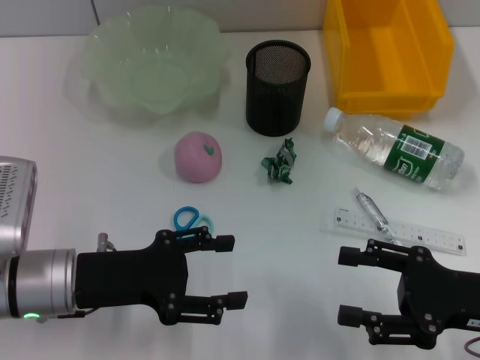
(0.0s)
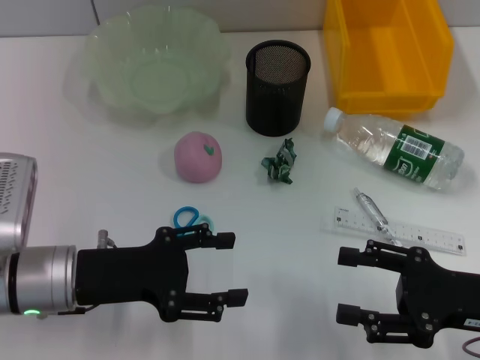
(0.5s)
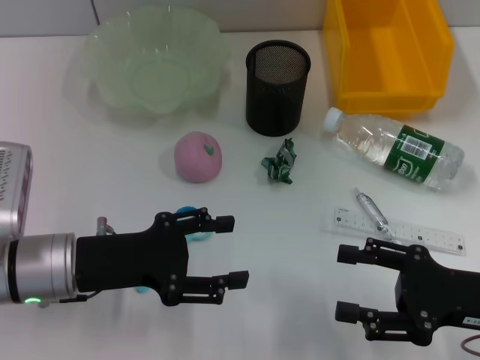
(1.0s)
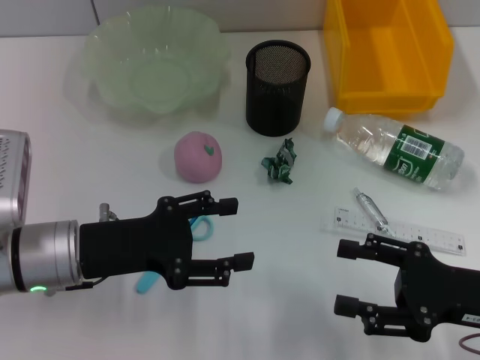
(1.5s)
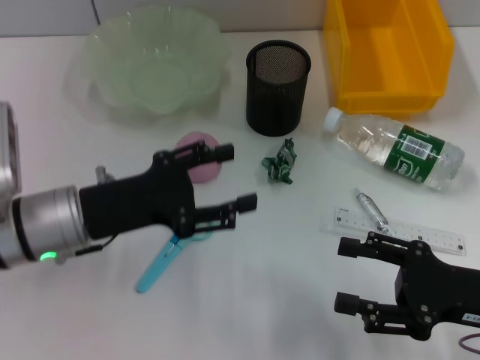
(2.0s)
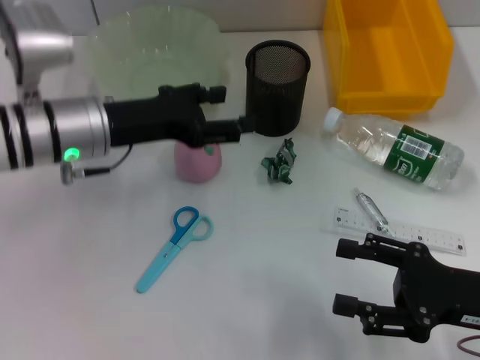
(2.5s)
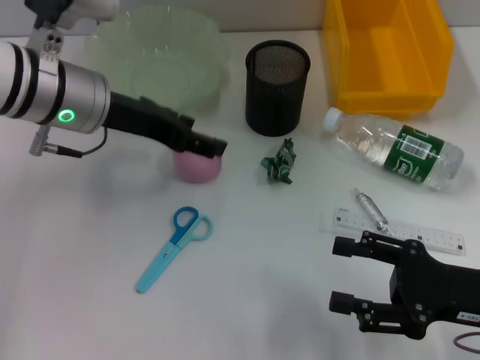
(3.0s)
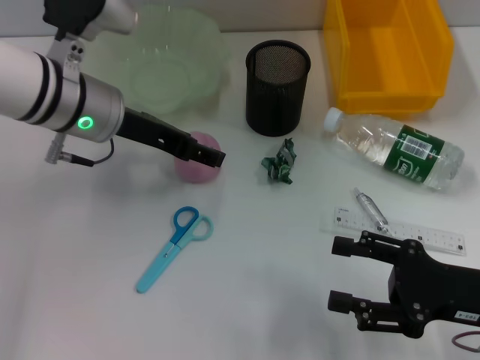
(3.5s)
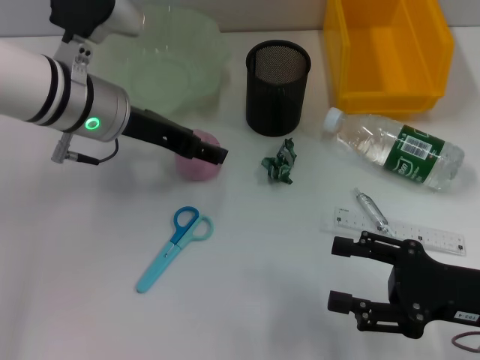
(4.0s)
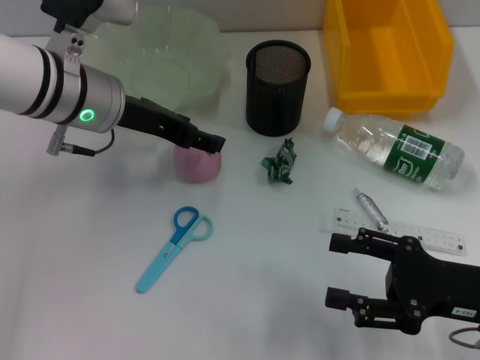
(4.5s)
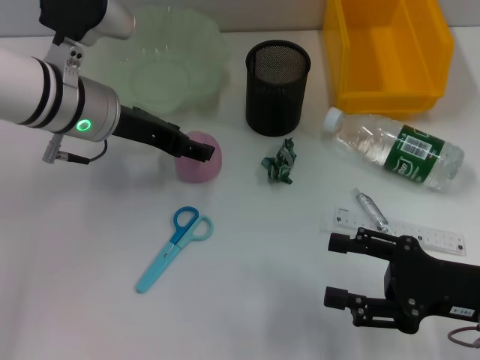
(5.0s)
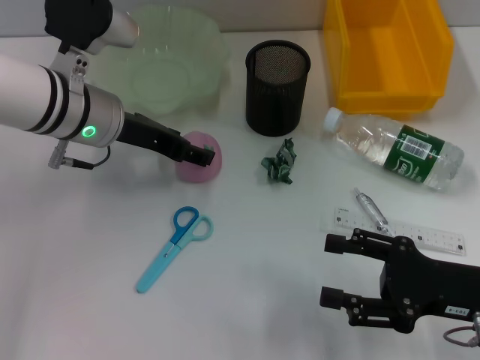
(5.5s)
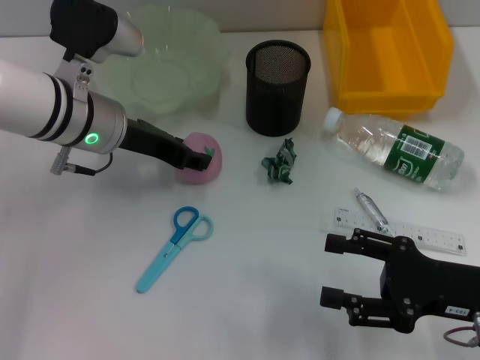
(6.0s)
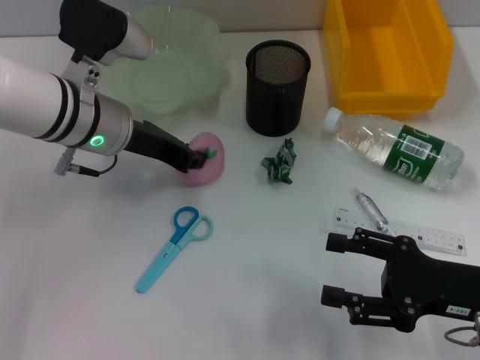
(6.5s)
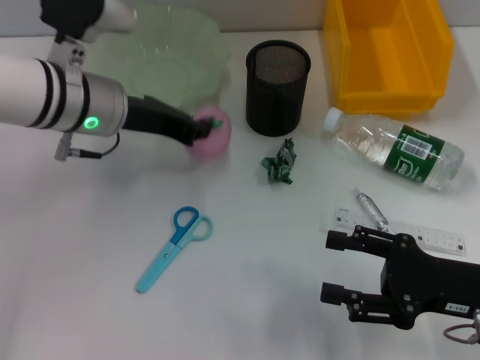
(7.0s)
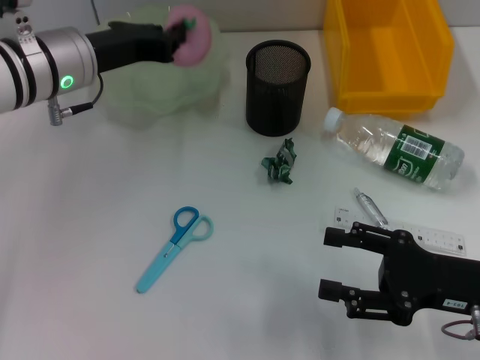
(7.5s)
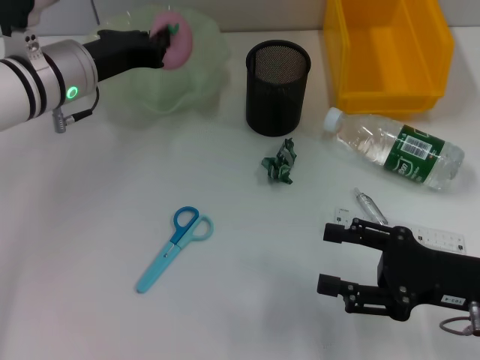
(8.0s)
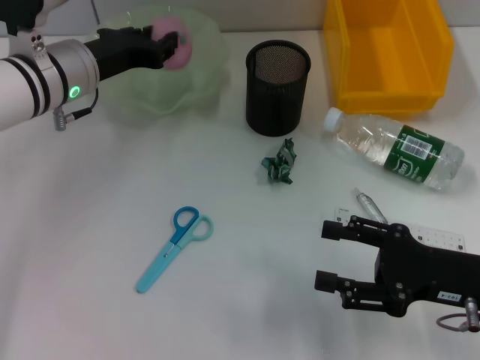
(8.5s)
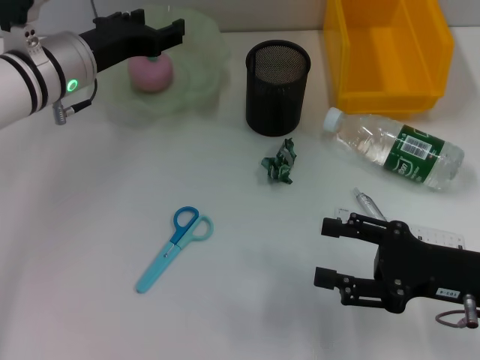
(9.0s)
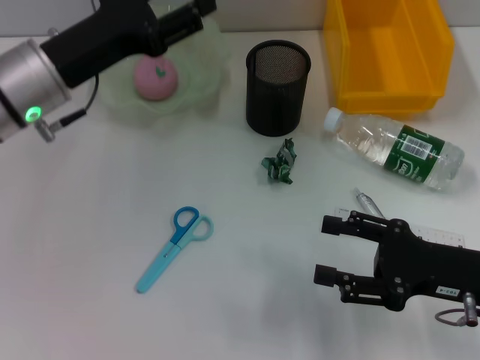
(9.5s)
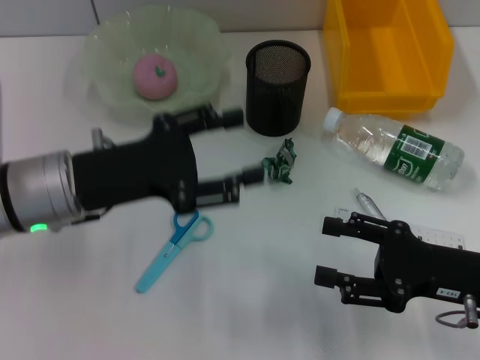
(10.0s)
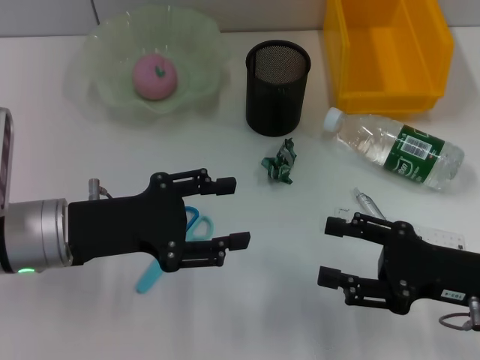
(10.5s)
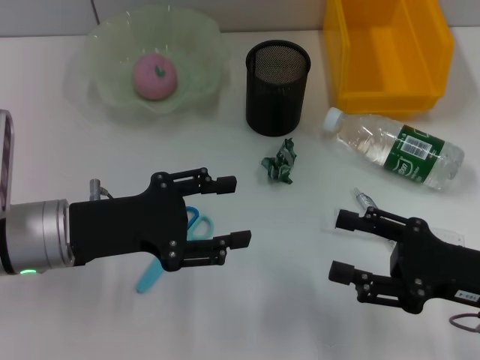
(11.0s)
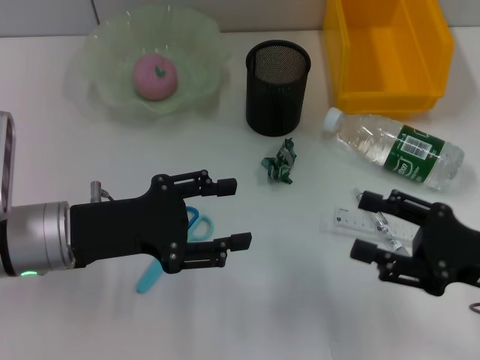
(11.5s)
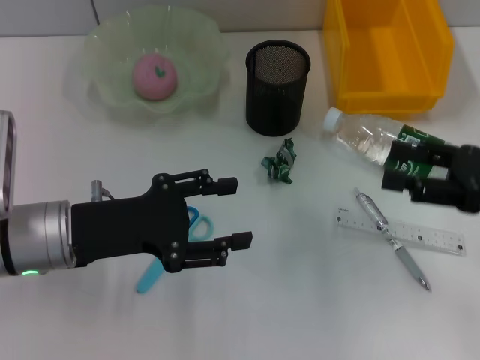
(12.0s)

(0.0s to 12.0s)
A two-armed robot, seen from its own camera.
Step, 0.0s - 6.5s: Grab the peach with the left hand.
Step, 7.0s - 8.5s: Place the peach into the fruit bowl with the left hand.
2.0s - 4.0s: The left gripper moves forward and upward, some 10 cm.
4.0s - 6.0s: There are only small adjustments of the grippers.
6.0s - 8.0s: The left gripper closes up.
8.0s - 10.0s: The left gripper shifts roughly 10 cm backward, and opens its fingers.
10.0s - 12.0s: The right gripper moves upward and to the right, some 10 cm.

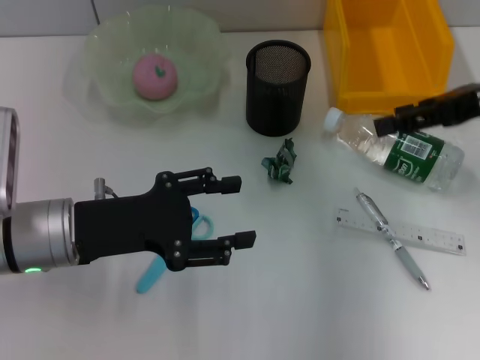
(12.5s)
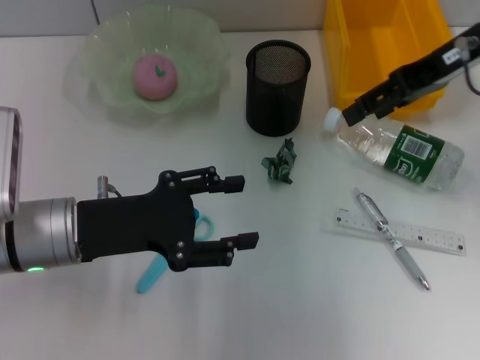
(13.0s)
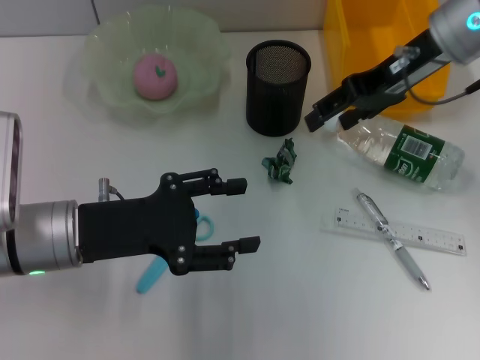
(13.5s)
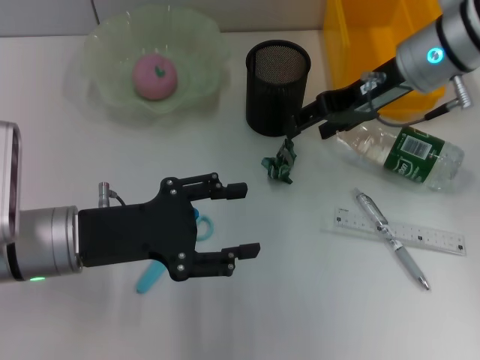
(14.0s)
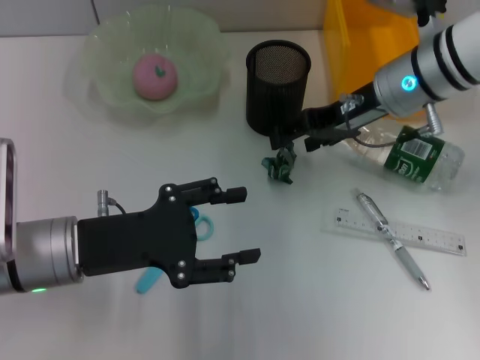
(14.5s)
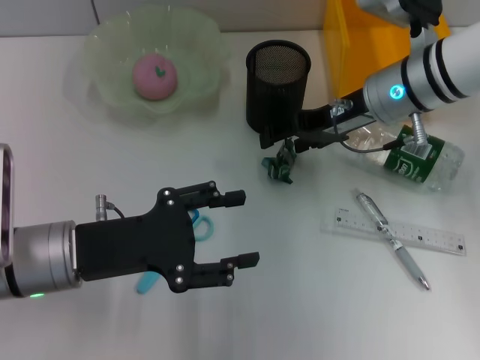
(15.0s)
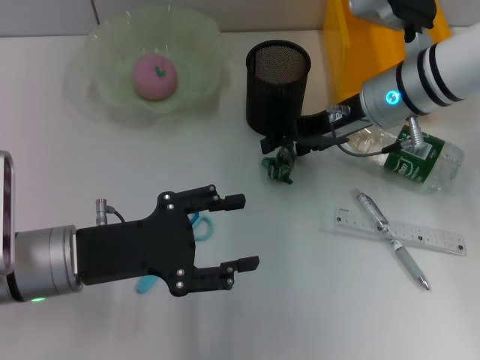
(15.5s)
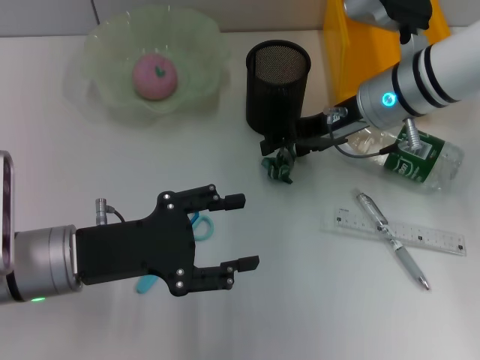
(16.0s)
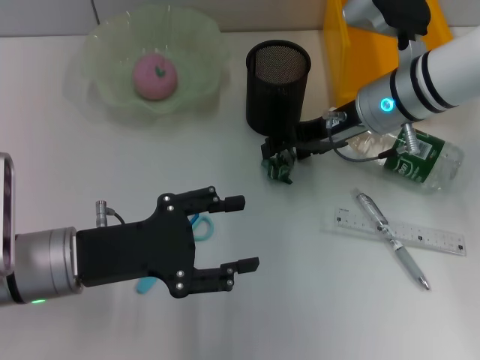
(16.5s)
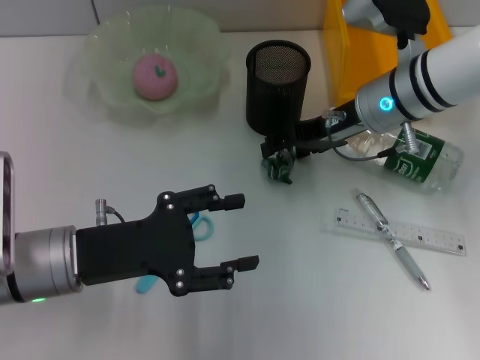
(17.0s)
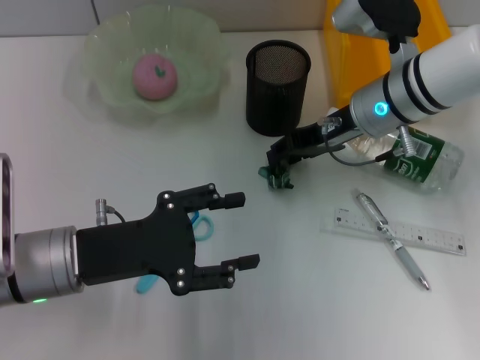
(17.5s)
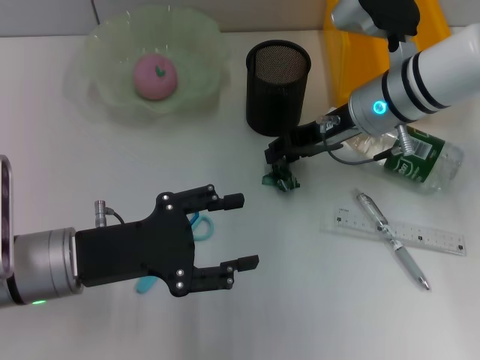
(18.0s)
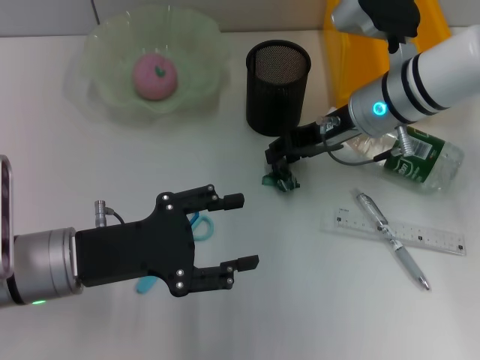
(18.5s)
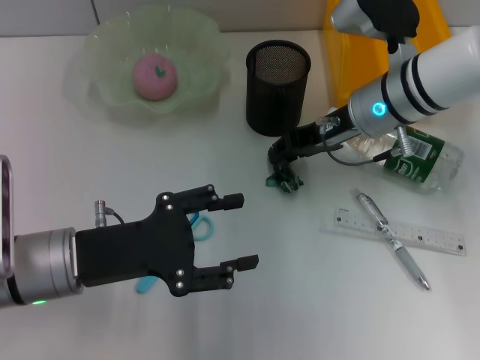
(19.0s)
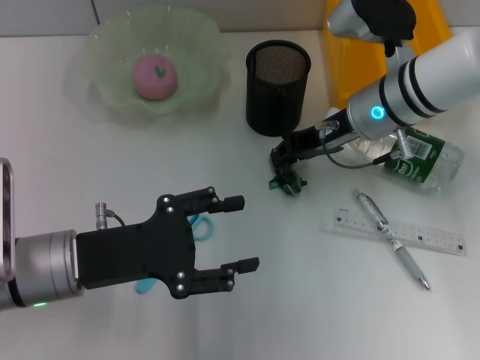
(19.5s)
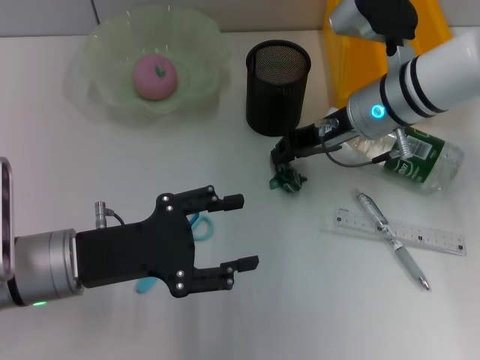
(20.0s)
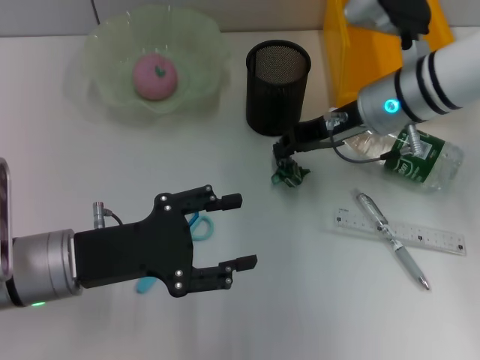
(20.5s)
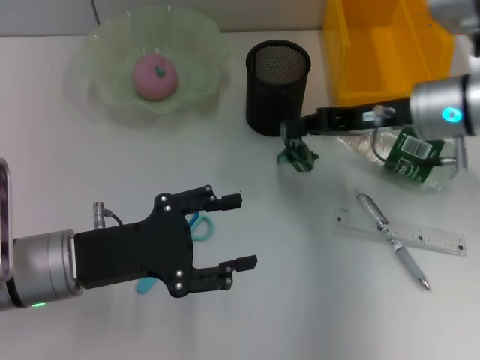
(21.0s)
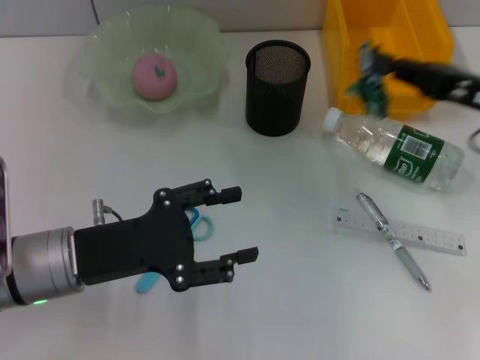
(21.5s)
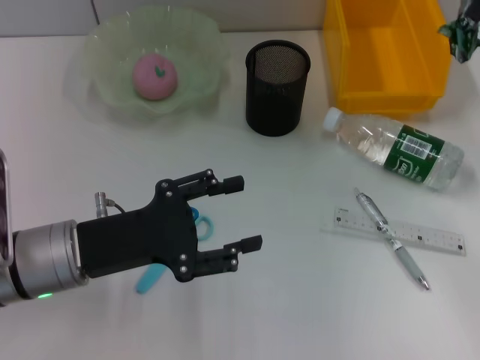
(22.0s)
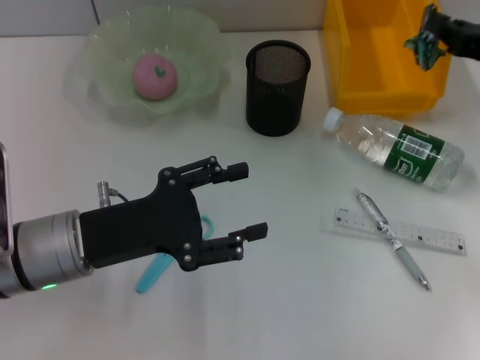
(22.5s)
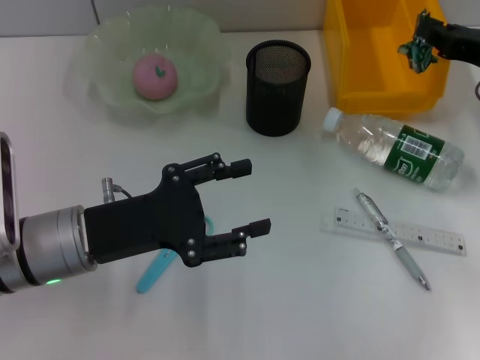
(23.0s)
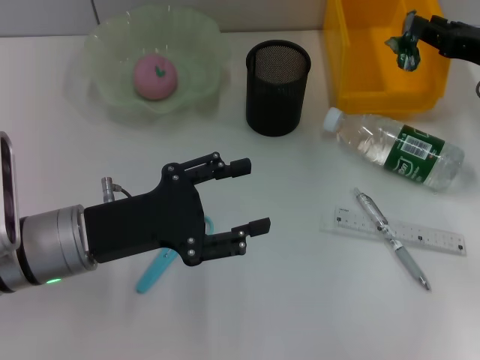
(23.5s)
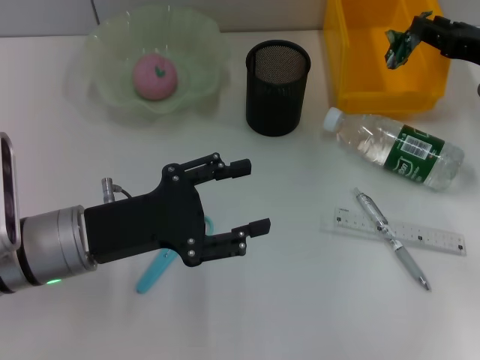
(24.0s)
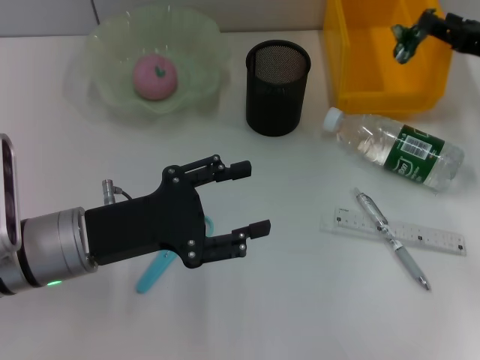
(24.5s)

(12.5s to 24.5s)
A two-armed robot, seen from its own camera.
Step, 12.5s - 19.5s: Grab the plastic with the right hand.
12.5s - 14.5s: The right gripper heads to the left, downward and forward, covering roughly 15 cm.
14.5s - 16.5s: There are only small adjustments of the grippers.
16.5s - 18.5s: The right gripper closes.
18.5s - 20.5s: The right gripper closes its fingers.
20.5s - 22.5s: The right gripper moves to the right, approximately 15 cm.
22.5s - 24.5s: The right gripper opens.

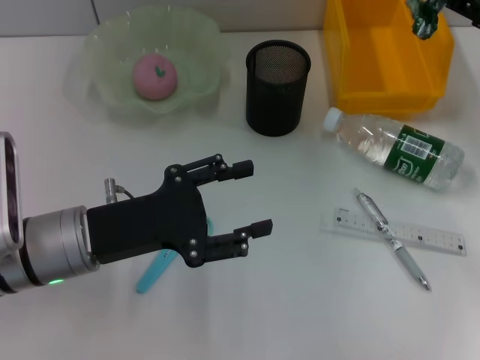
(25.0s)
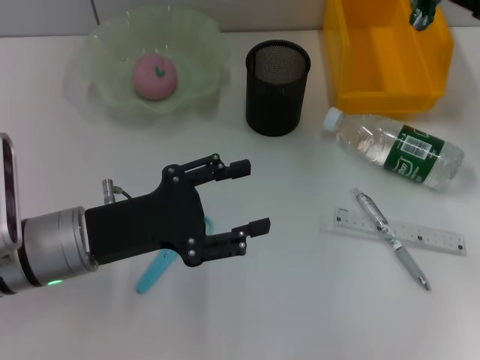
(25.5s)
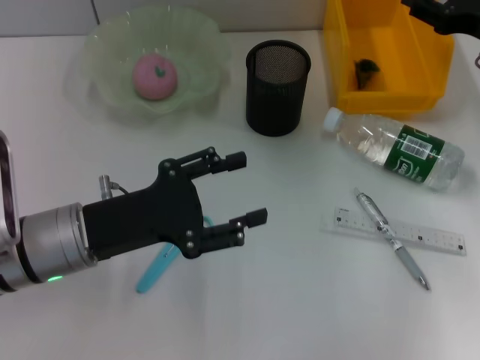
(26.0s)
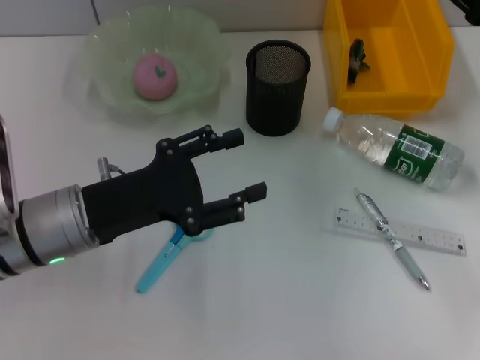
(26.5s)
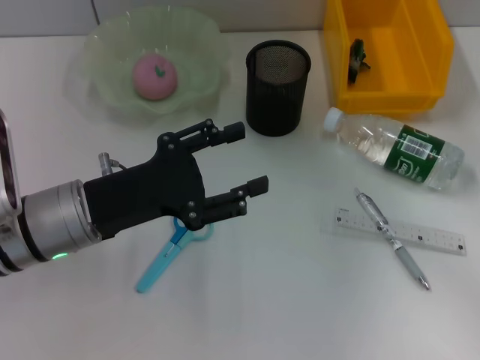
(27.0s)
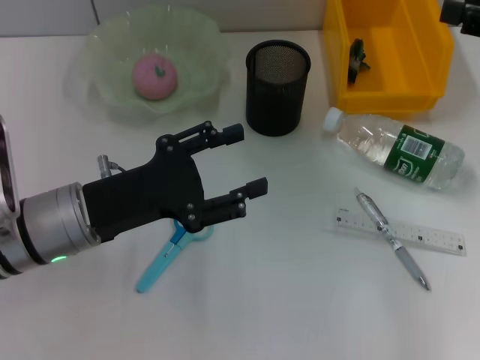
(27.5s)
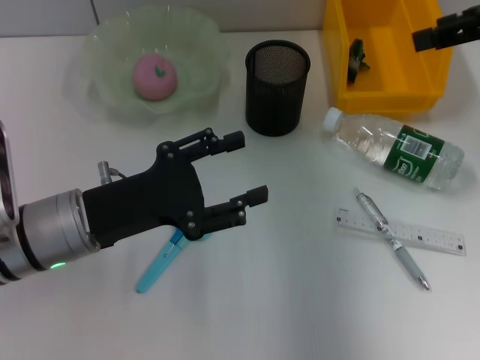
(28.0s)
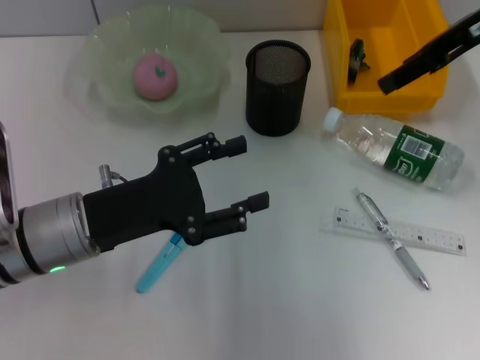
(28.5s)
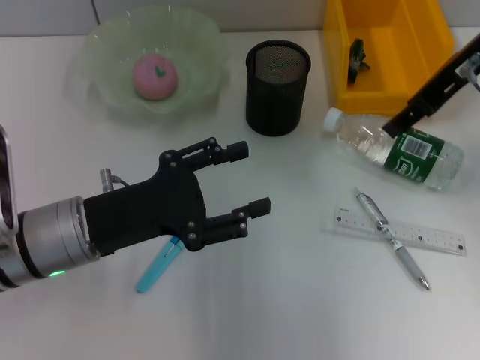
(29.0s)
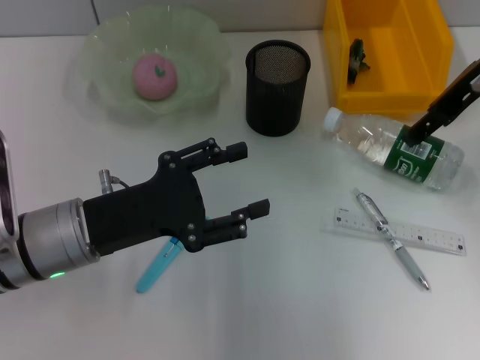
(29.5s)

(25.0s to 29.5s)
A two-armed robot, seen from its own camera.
25.0s - 27.0s: The right gripper travels backward by approximately 5 cm.
27.0s - 29.5s: The right gripper goes roughly 15 cm to the left, forward and upward.
